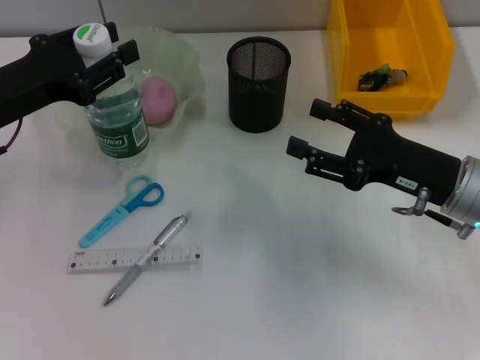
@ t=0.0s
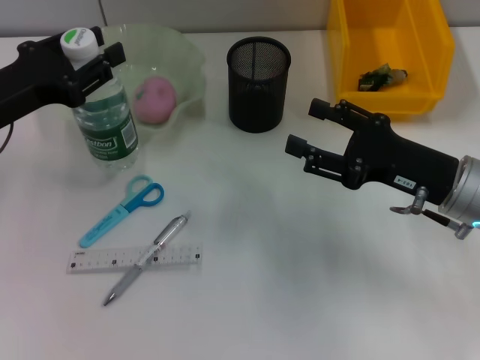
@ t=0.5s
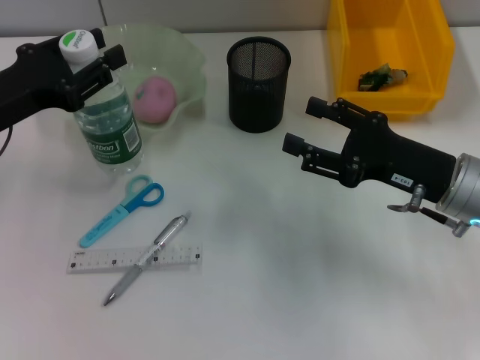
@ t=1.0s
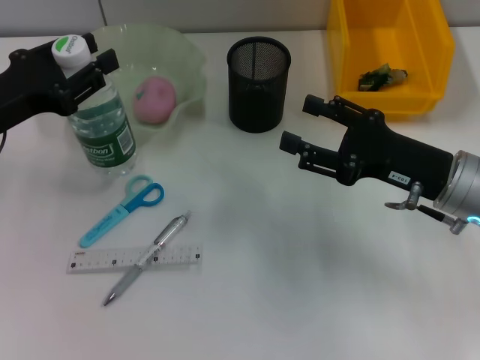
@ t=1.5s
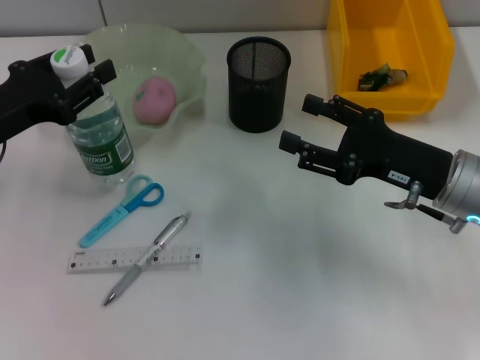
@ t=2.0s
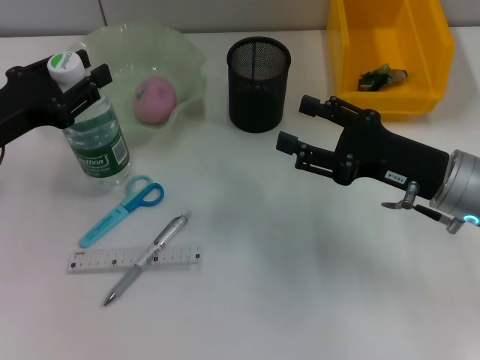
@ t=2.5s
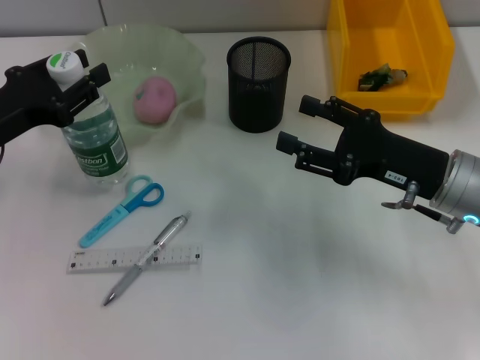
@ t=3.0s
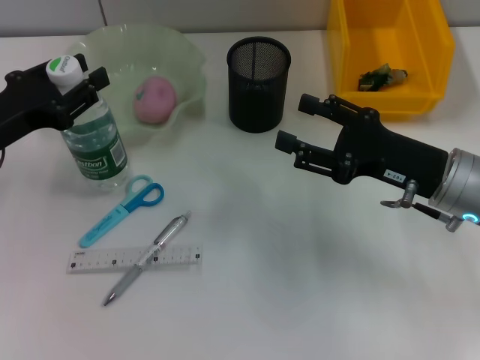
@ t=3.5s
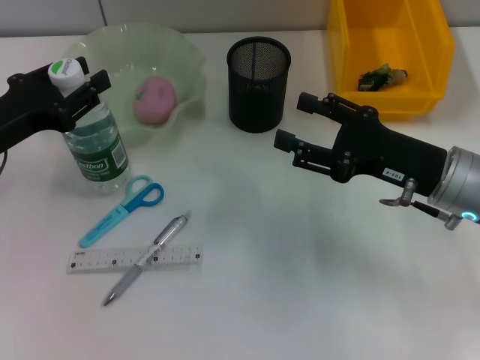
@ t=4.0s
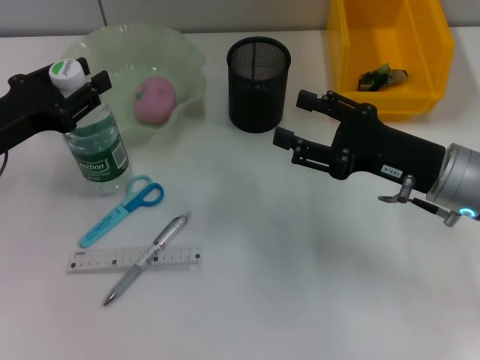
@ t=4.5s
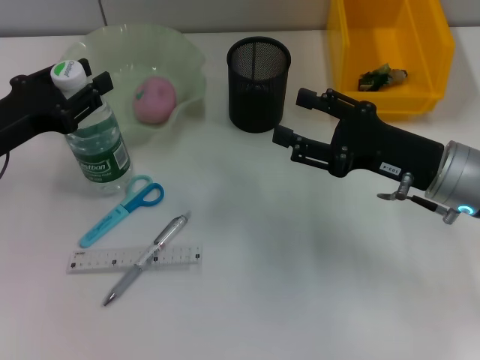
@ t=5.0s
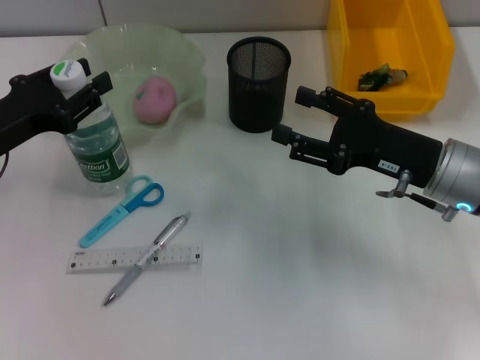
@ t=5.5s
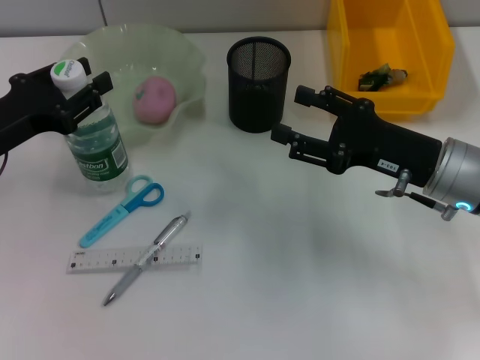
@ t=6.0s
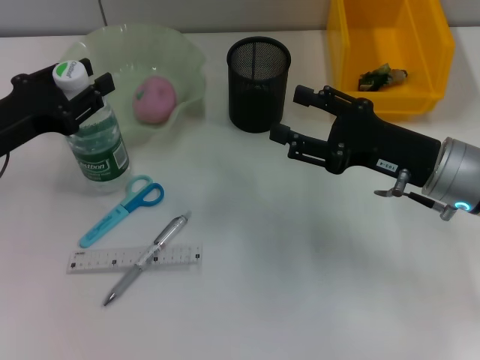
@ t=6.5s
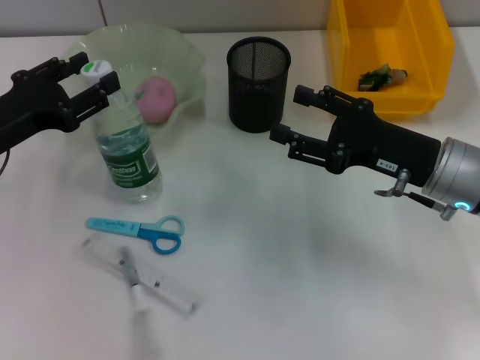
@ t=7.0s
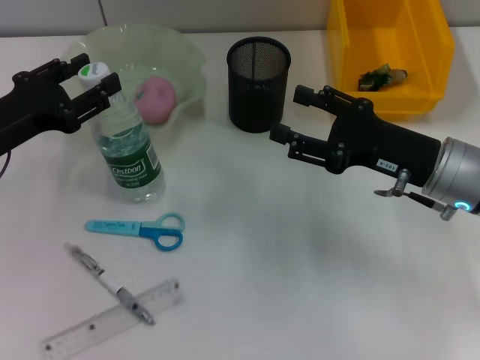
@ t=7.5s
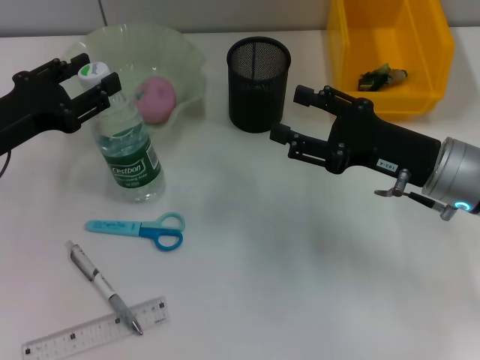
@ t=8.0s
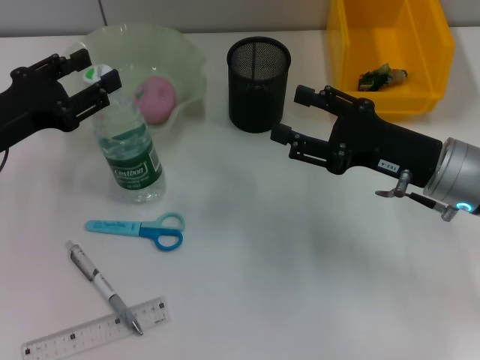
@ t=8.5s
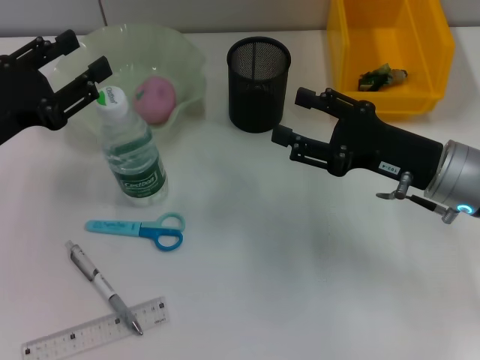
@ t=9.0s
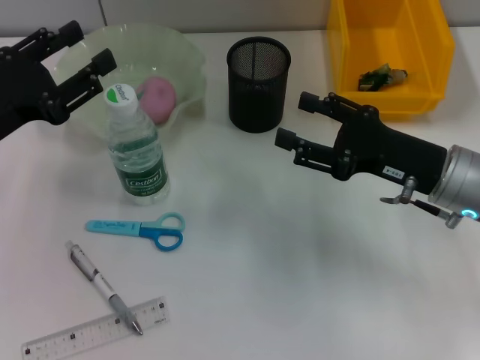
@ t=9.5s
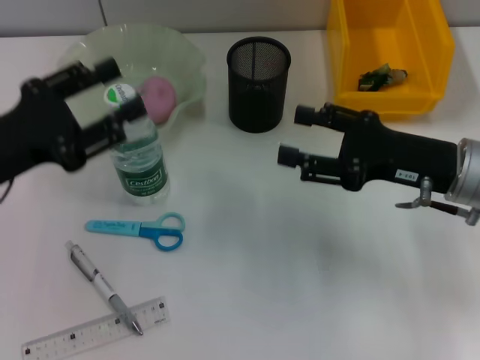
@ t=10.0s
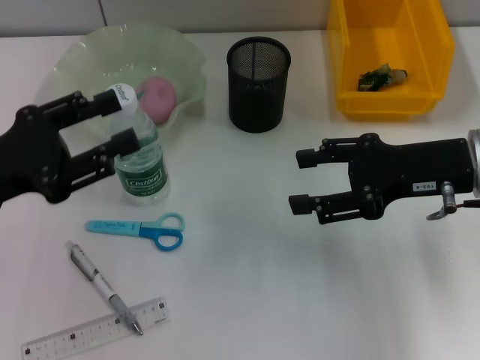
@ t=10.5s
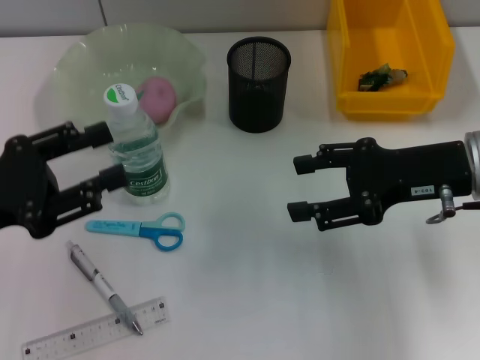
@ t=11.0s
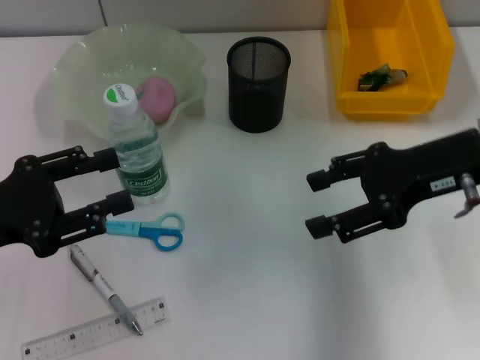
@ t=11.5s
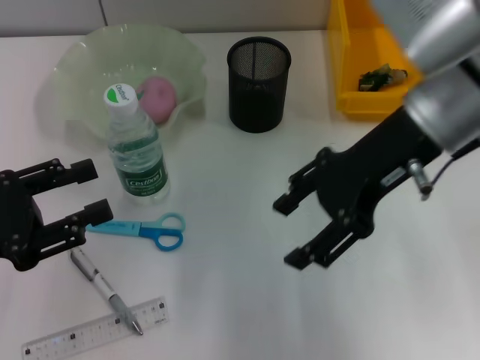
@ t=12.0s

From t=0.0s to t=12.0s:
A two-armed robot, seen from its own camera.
Step, from t=0.0s to t=9.0s: Place the water bottle on the table with the left hand.
From t=0.0s to t=4.0s: The grippers stay close to where they were, moving slightly.
From t=4.0s to t=8.0s: Neither gripper changes place.
From t=10.0s to t=12.0s: The right gripper is displaced upward and to the left by about 15 cm. The left gripper goes roughly 5 cm backward.

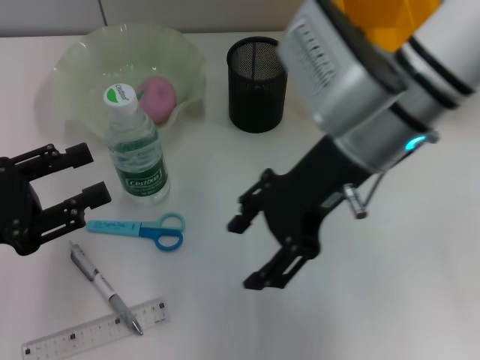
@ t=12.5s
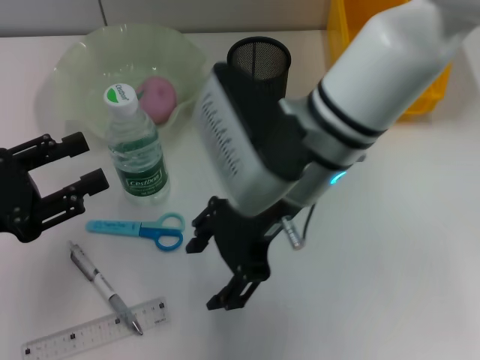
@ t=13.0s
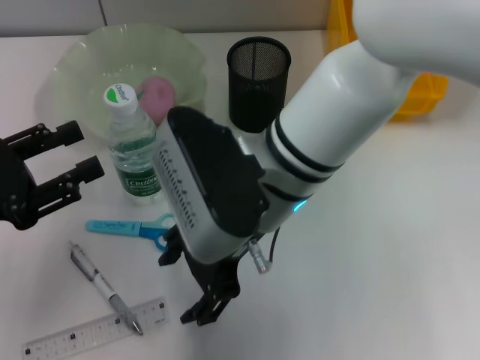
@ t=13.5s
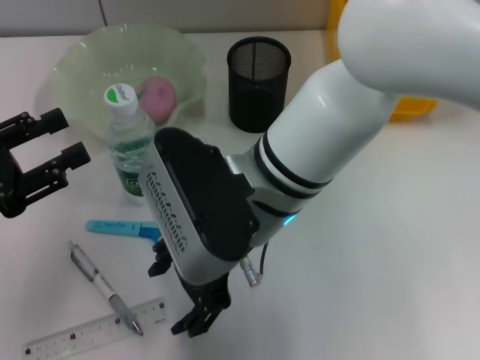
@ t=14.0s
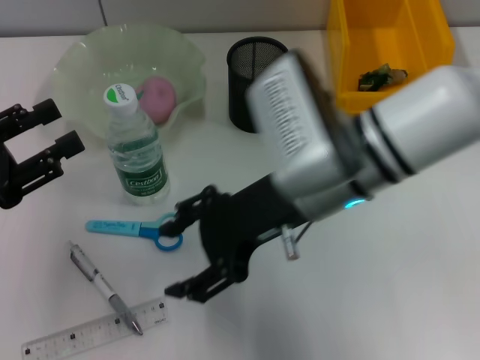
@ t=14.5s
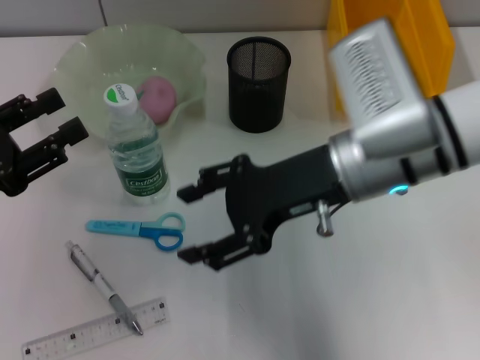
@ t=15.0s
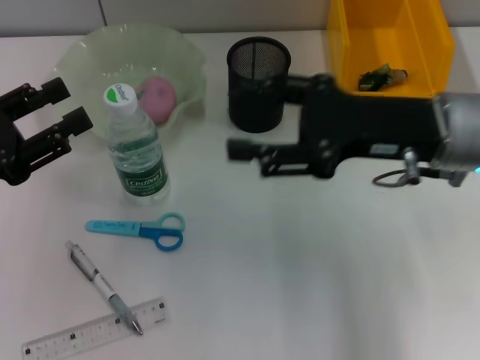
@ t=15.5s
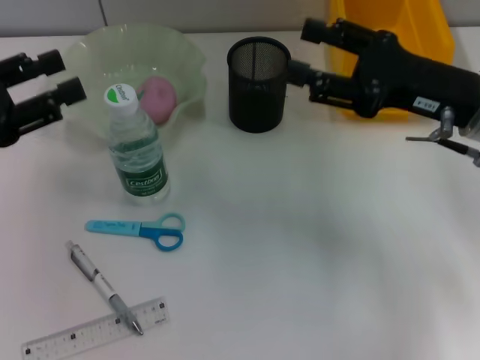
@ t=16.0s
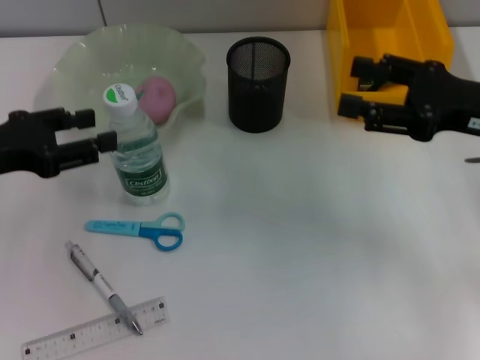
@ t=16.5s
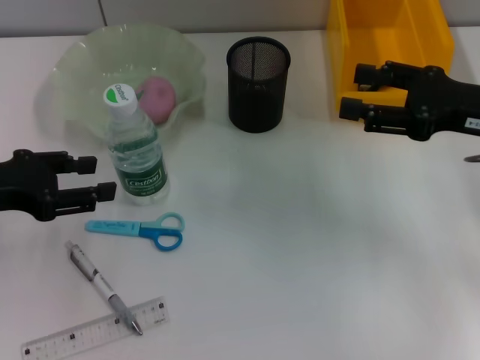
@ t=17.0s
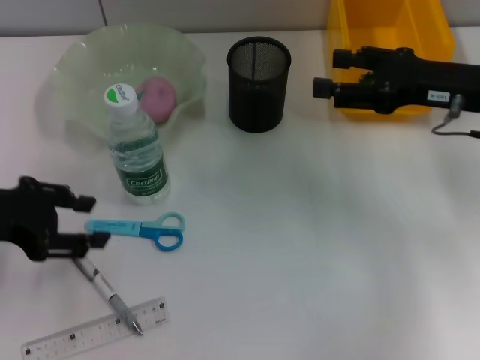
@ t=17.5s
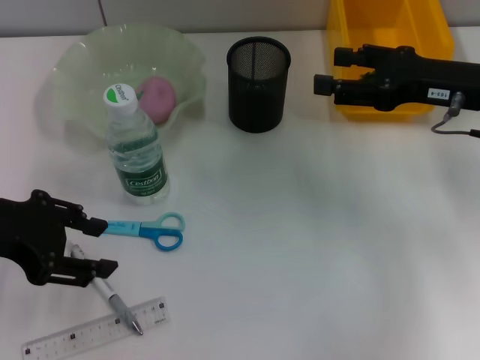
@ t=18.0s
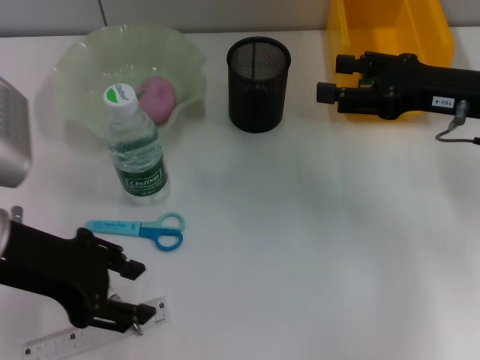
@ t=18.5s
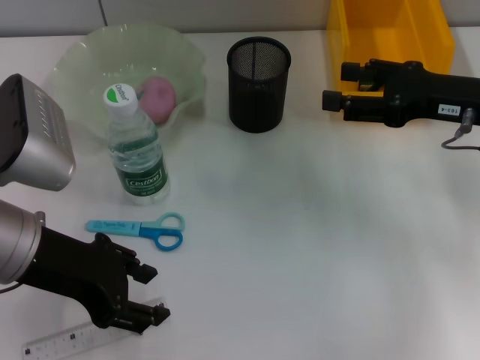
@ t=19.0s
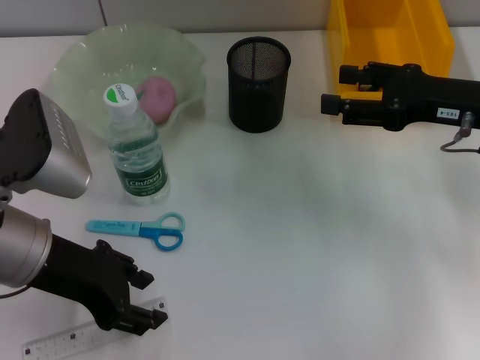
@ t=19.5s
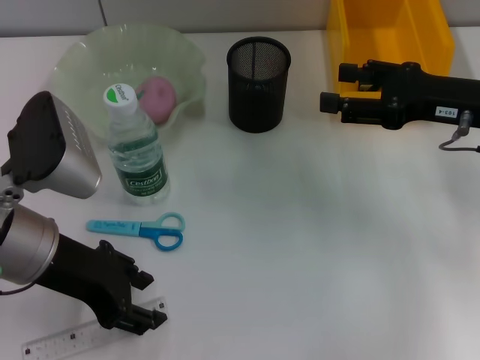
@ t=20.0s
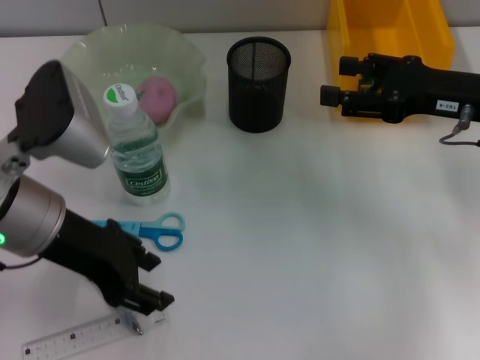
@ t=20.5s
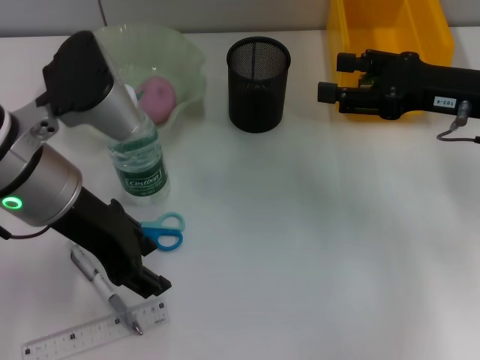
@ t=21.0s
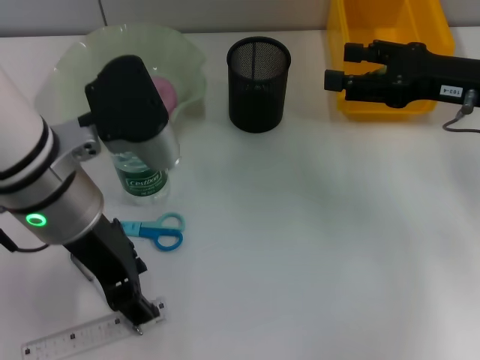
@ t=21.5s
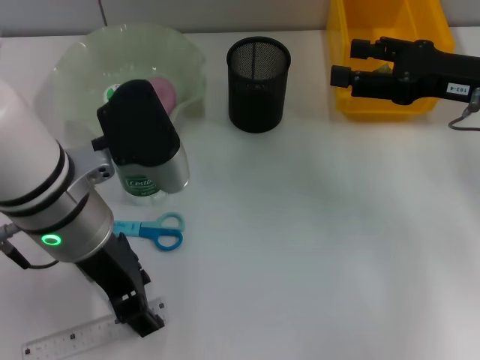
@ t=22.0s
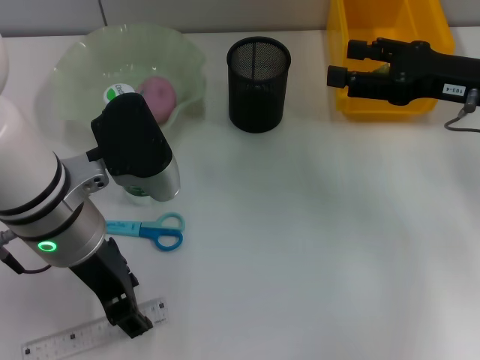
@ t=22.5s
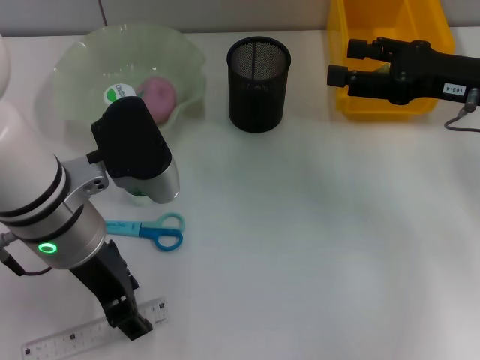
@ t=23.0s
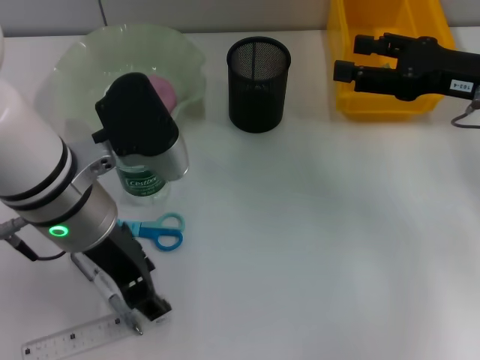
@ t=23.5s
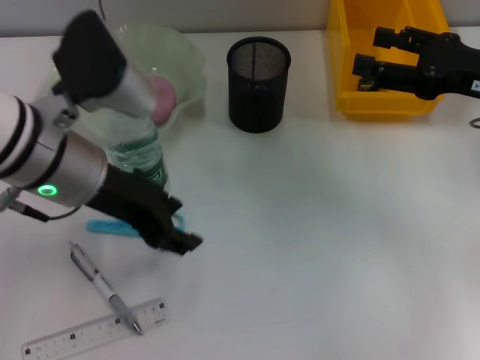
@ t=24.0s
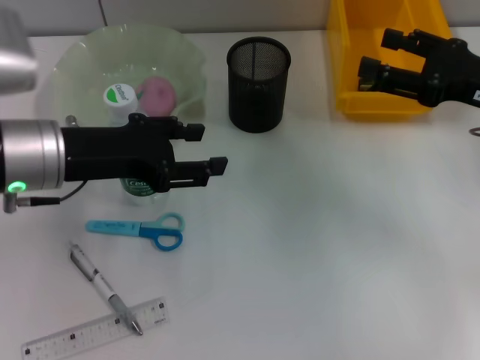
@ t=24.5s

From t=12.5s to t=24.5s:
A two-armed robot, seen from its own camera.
From t=12.5s to t=14.5s: The right gripper travels to the left and back again, some 10 cm each way.
From t=14.5s to t=16.5s: The right gripper travels to the right by some 20 cm, while the left gripper shifts some 5 cm forward.
From t=16.5s to t=18.5s: The left gripper goes approximately 10 cm to the right.
From t=18.5s to t=20.5s: The grippers make only small movements.
From t=22.5s to t=24.5s: The left gripper is displaced to the left by about 5 cm.

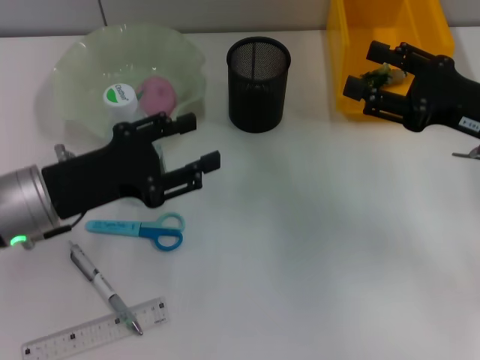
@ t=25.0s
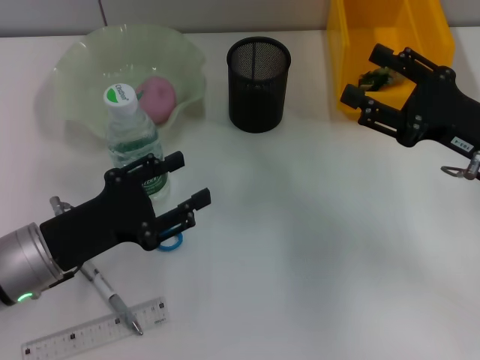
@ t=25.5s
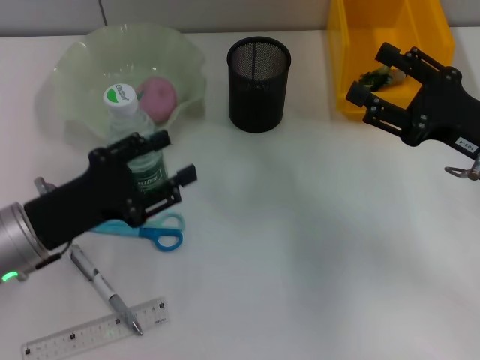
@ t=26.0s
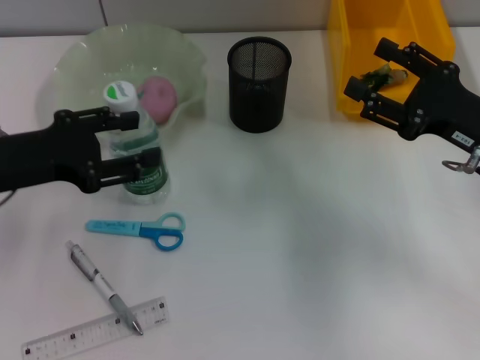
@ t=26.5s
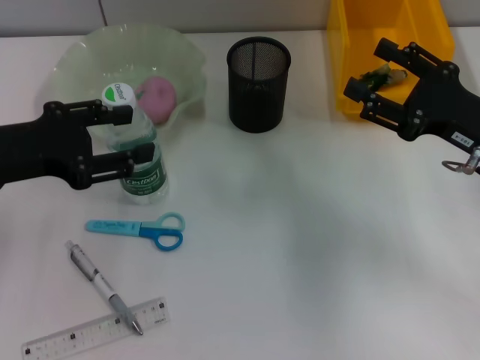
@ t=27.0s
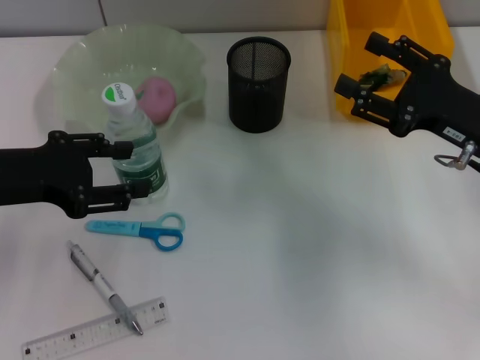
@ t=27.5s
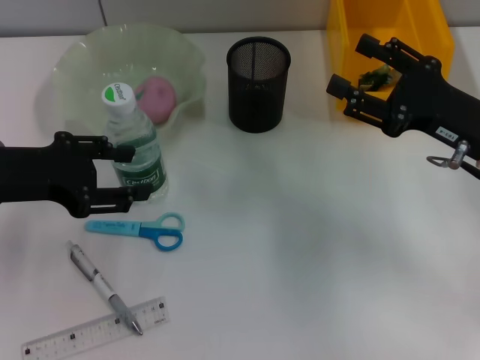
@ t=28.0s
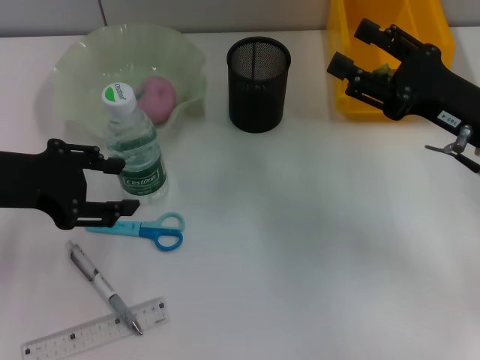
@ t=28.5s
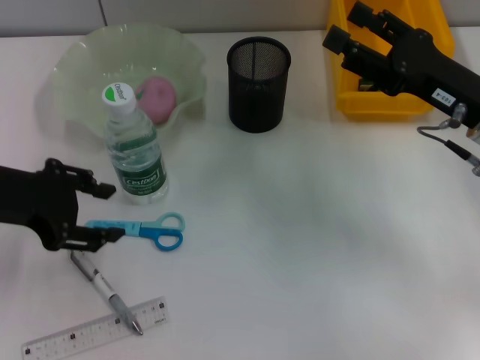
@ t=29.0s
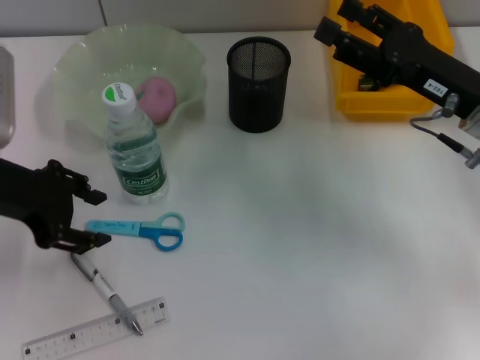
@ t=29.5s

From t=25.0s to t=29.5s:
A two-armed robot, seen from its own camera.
From t=25.0s to t=27.0s: The left gripper goes about 5 cm upward.
From t=27.0s to t=29.5s: The right gripper ends up roughly 5 cm from where it was.
